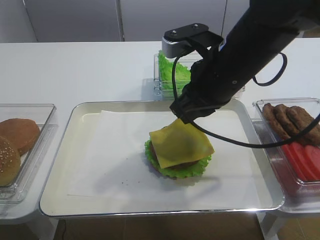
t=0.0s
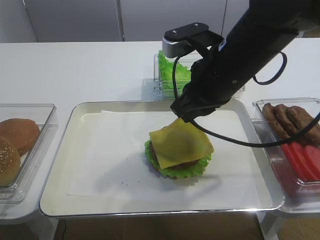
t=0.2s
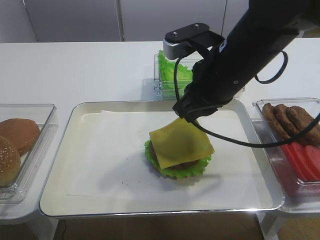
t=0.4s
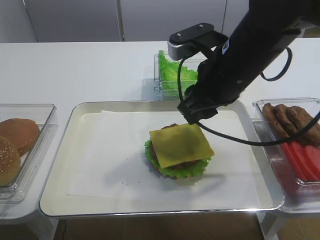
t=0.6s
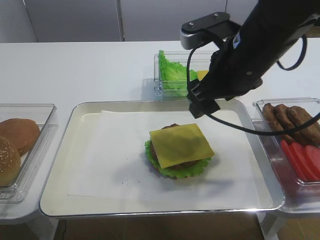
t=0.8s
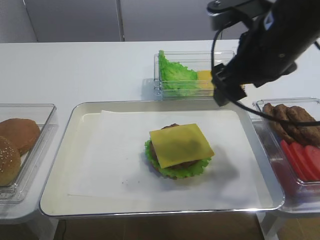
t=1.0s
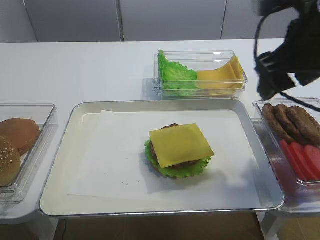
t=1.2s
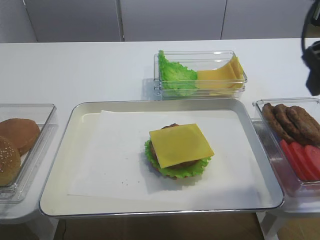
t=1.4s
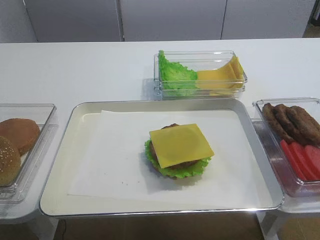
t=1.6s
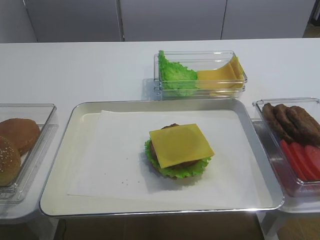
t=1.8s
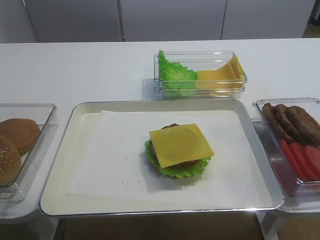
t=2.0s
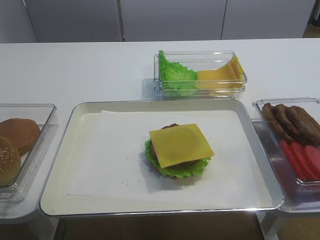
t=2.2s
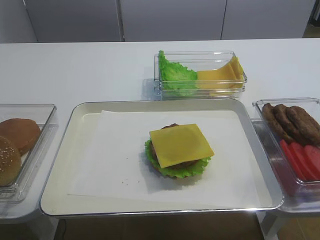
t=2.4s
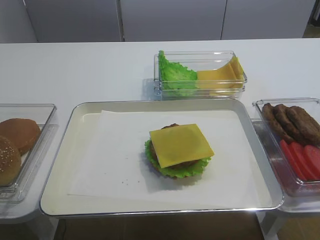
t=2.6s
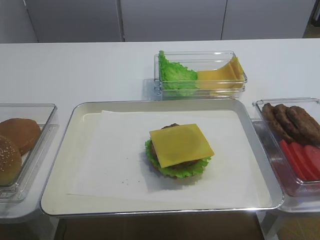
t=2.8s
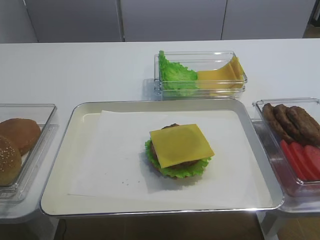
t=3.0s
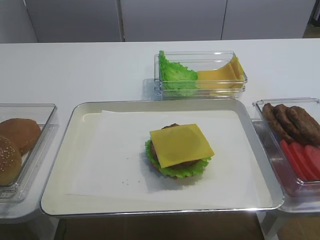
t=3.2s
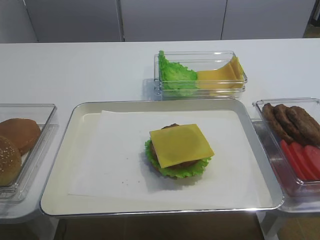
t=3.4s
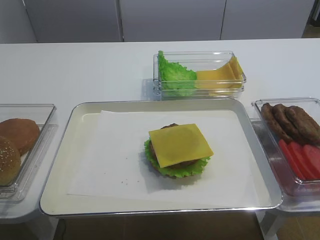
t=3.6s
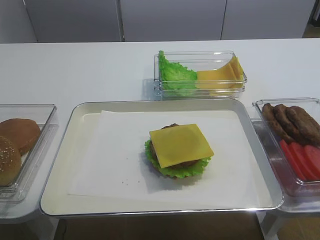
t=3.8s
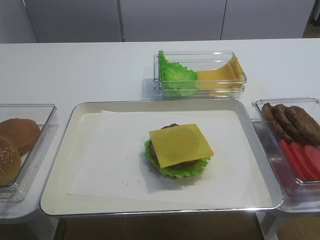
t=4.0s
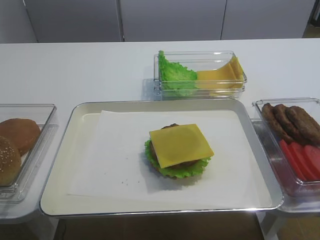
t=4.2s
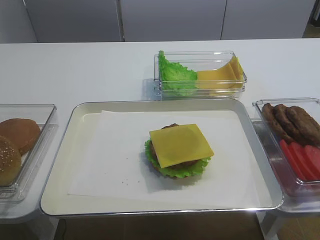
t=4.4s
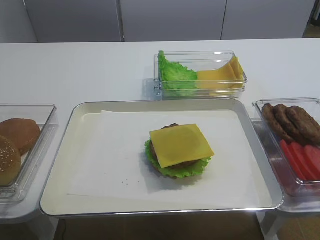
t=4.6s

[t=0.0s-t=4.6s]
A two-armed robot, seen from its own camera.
t=0.0s to t=1.6s: The right gripper shifts about 20 cm to the right, upward and backward, and opens its fingers.
t=1.6s to t=3.0s: The right gripper travels backward by some 20 cm.

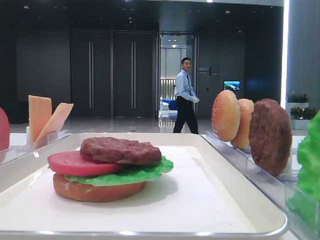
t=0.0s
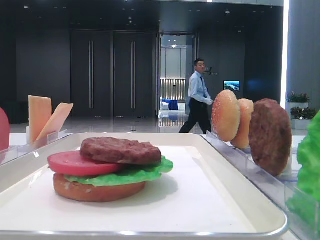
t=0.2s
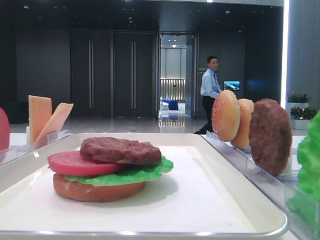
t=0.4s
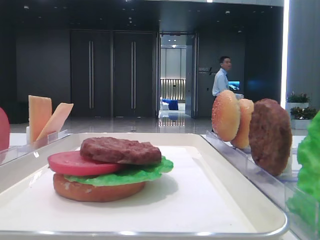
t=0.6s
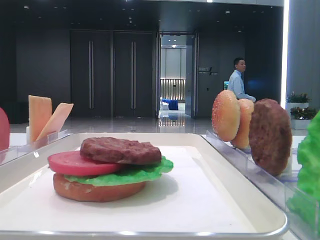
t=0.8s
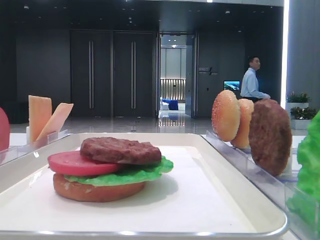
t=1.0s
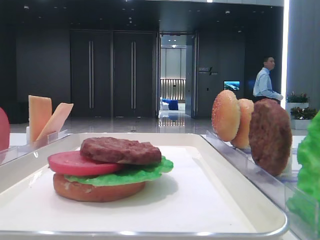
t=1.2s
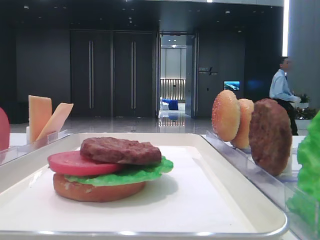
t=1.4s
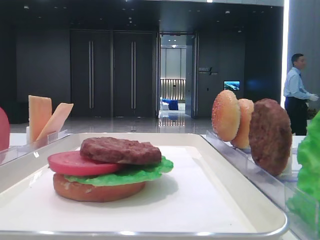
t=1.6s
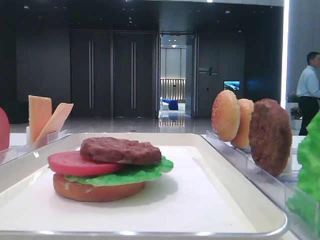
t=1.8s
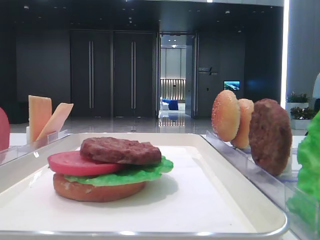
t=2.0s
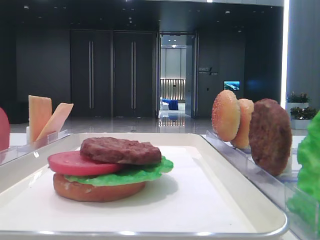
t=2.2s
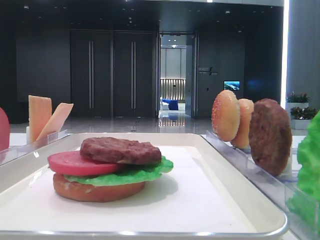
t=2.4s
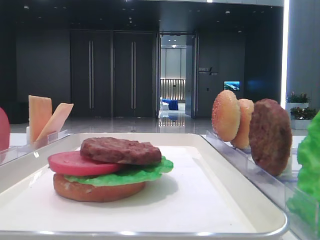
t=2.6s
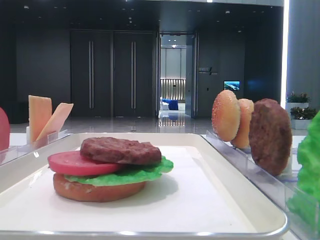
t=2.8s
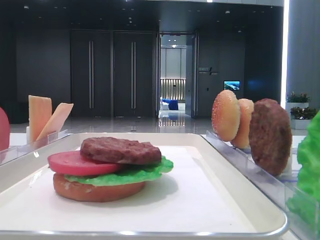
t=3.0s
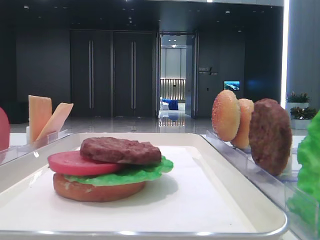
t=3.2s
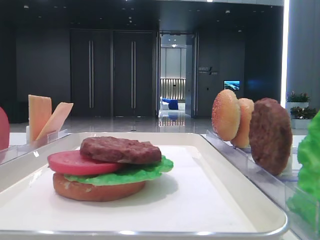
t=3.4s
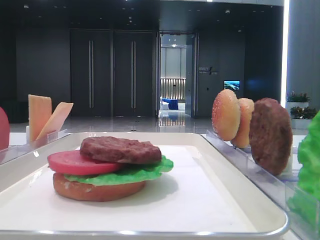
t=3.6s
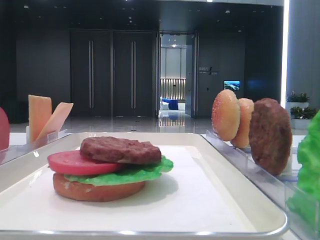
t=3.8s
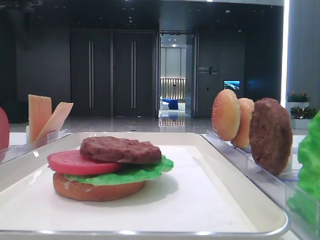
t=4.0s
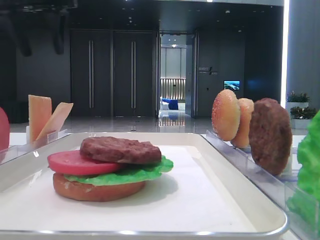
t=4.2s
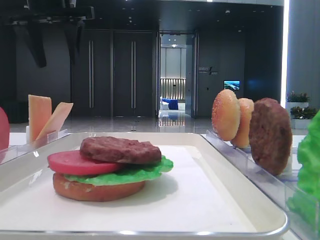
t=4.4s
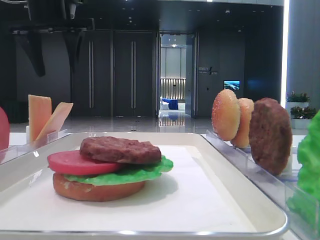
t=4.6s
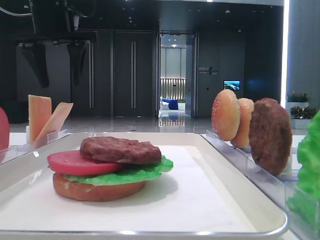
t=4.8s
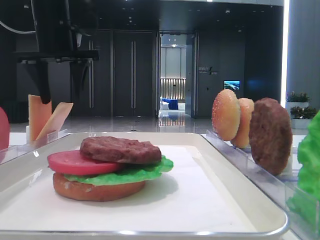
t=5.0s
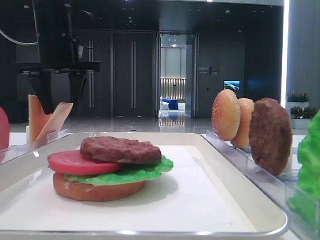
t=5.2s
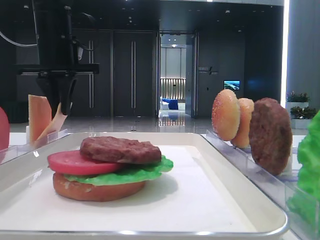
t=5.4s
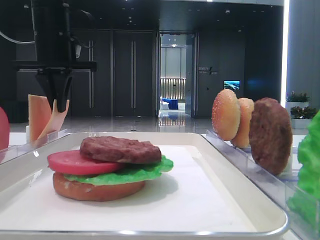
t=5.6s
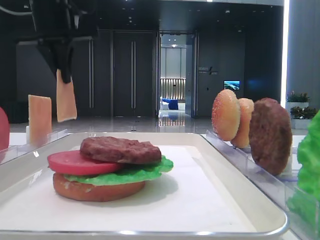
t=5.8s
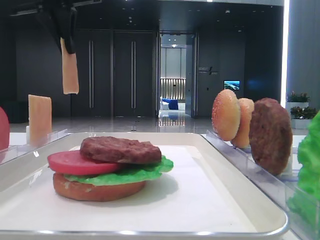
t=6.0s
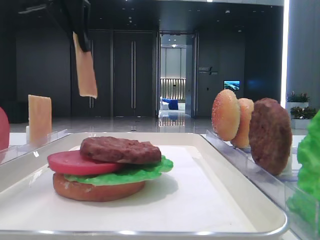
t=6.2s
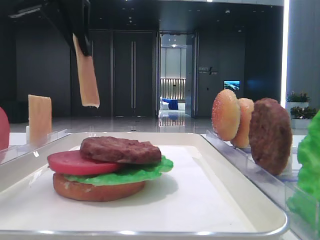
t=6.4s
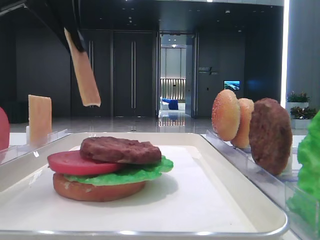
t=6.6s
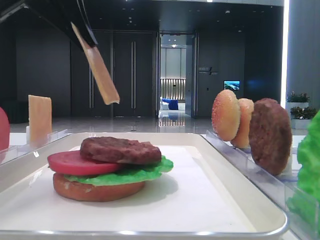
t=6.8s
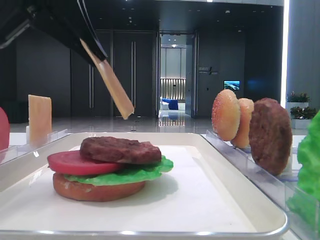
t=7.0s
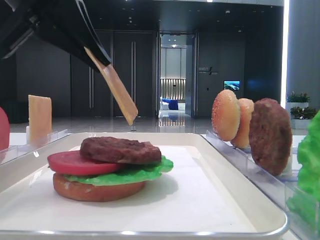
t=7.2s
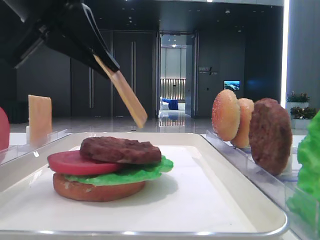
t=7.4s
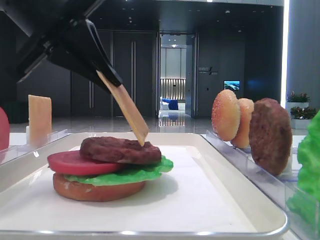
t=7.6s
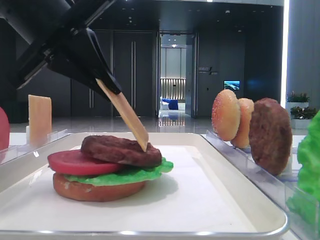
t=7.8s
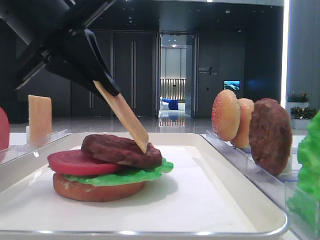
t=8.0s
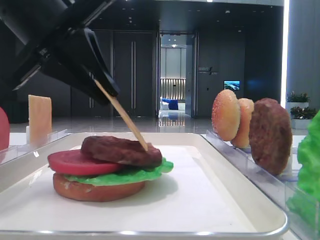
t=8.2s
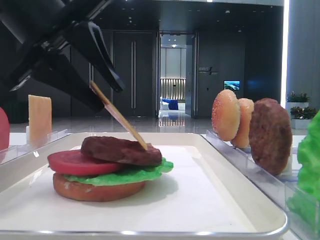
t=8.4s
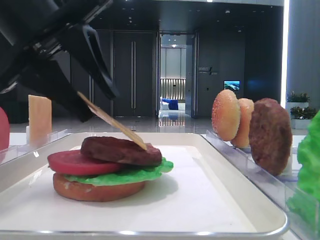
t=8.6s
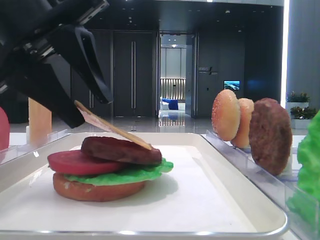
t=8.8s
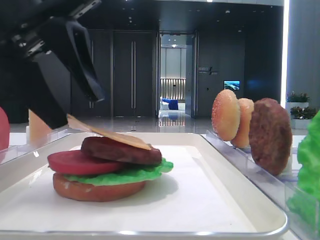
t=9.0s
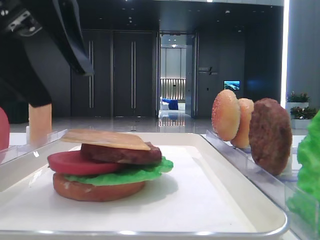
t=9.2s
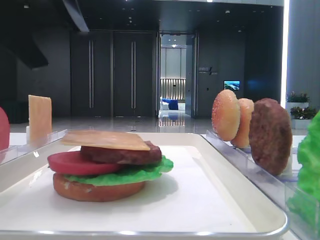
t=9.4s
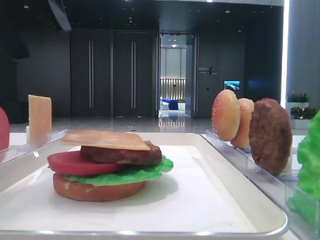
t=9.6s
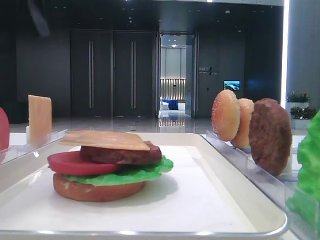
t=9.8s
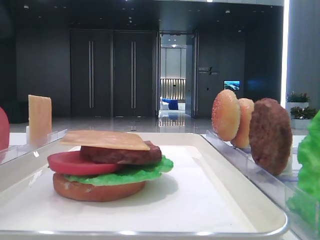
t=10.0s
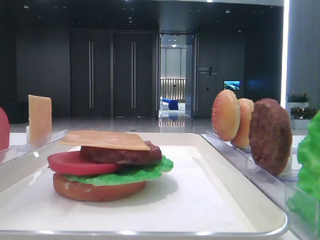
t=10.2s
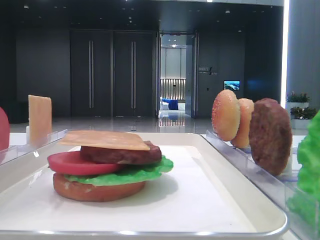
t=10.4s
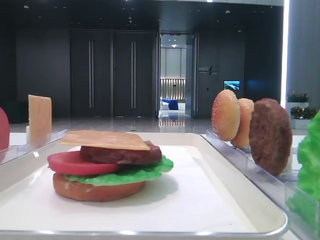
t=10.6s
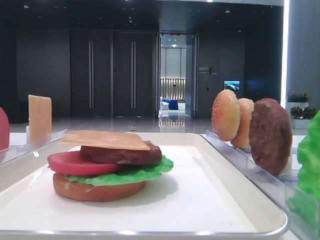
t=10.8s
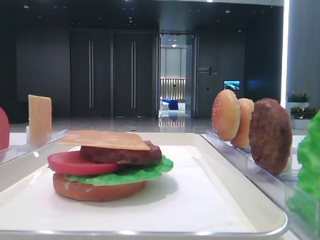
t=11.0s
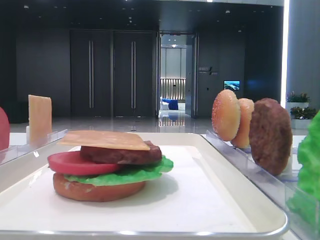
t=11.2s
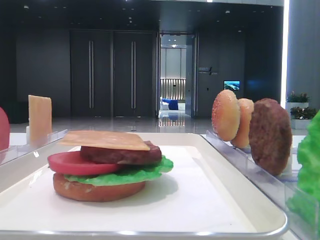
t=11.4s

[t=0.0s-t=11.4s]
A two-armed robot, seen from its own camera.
Step, t=0.0s to t=5.4s: Pick up the cheese slice with the left hand.
Step, t=5.6s to t=9.2s: Place the cheese slice on the patty with the left hand.
t=1.4s to t=2.8s: The grippers make only small movements.
t=2.8s to t=4.2s: The left gripper moves forward, roughly 40 cm.
t=4.2s to t=5.6s: The left gripper is displaced downward by approximately 10 cm, and closes.
t=5.6s to t=7.2s: The left gripper shifts roughly 20 cm backward.
t=7.2s to t=8.6s: The left gripper opens its fingers.
t=8.6s to t=10.0s: The left gripper moves upward and to the left, roughly 10 cm.
t=10.0s to t=11.4s: The left gripper heads to the left, covering approximately 15 cm.

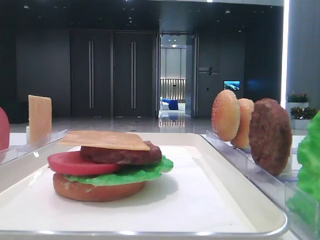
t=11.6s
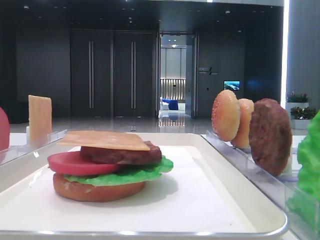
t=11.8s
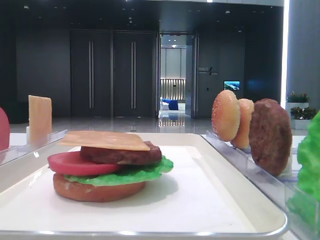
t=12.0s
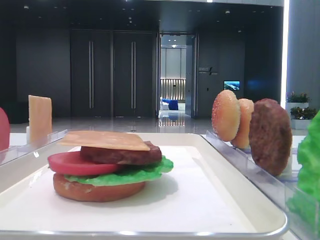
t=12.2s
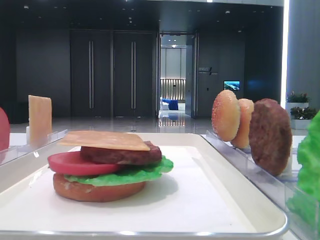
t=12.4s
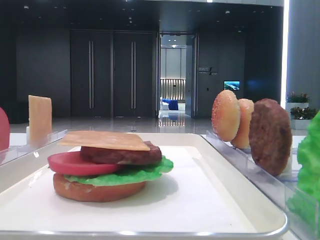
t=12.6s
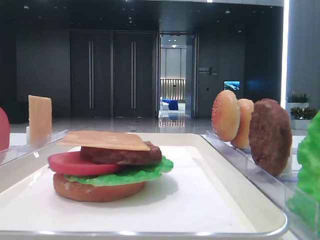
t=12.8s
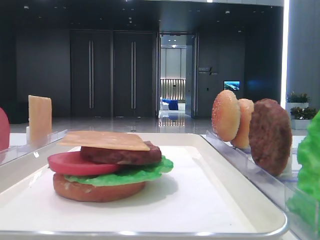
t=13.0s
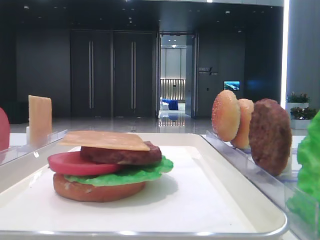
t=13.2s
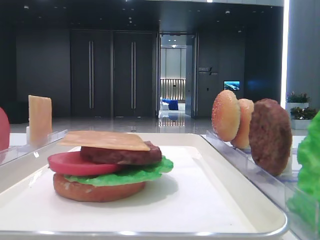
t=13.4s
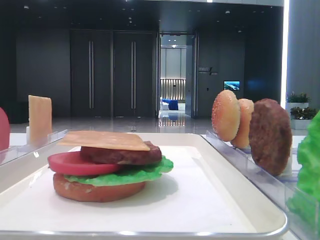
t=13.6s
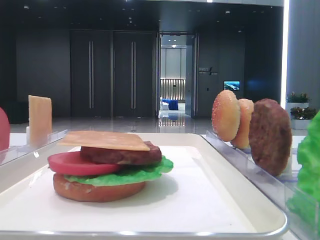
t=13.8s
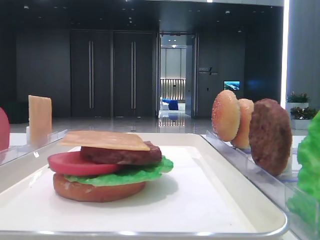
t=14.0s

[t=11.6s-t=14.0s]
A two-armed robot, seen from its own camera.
t=12.8s to t=14.0s: Both grippers stay about where they are.

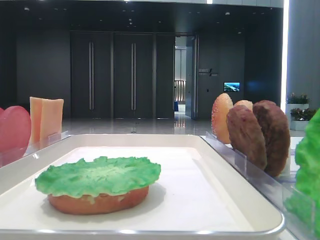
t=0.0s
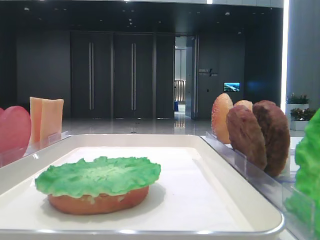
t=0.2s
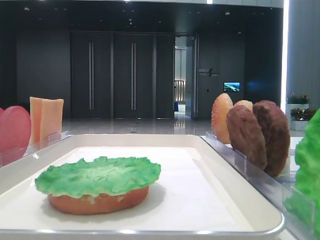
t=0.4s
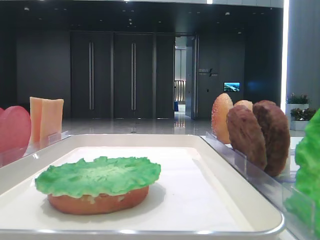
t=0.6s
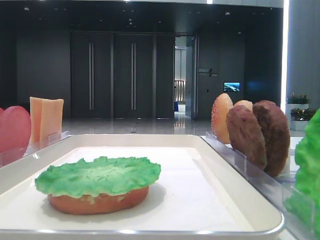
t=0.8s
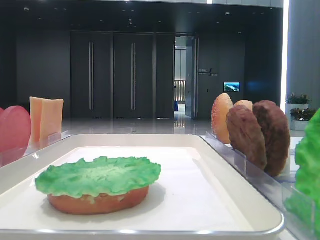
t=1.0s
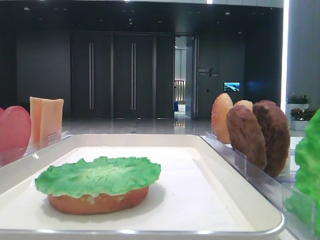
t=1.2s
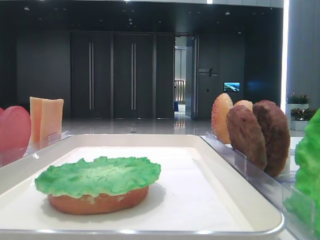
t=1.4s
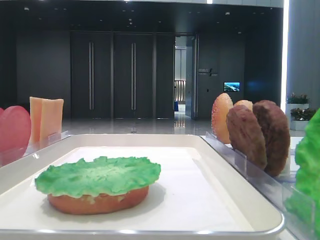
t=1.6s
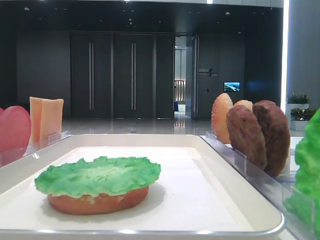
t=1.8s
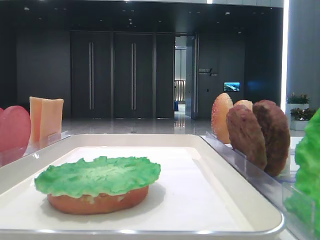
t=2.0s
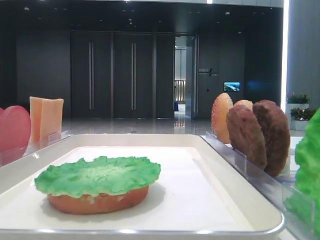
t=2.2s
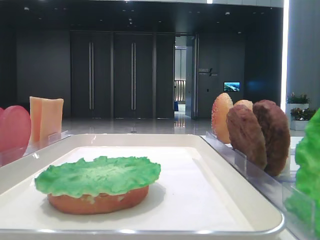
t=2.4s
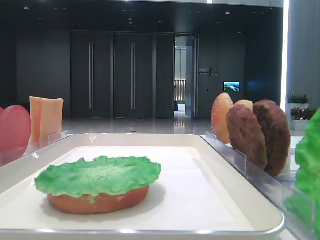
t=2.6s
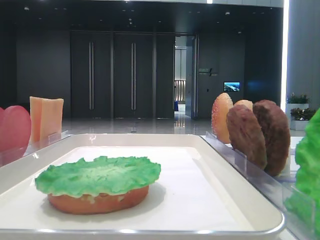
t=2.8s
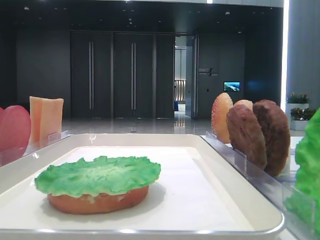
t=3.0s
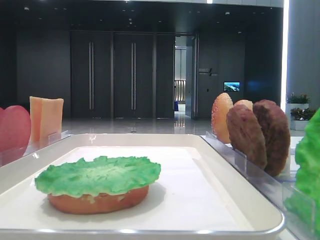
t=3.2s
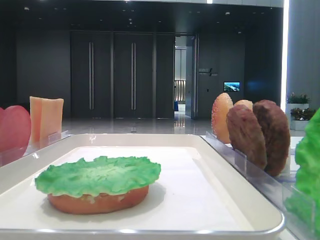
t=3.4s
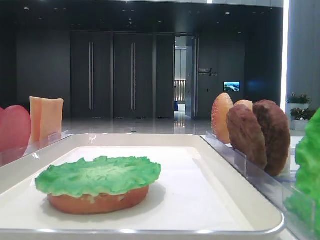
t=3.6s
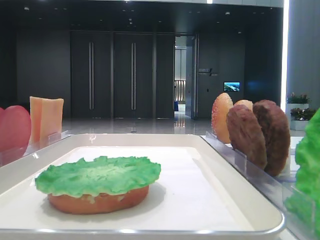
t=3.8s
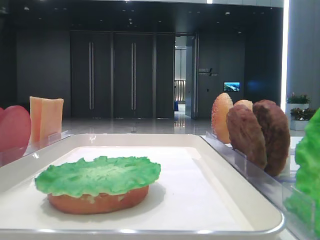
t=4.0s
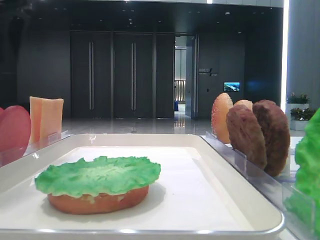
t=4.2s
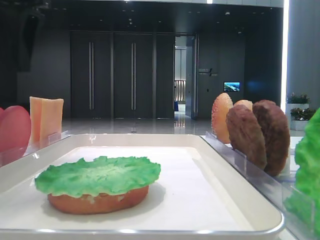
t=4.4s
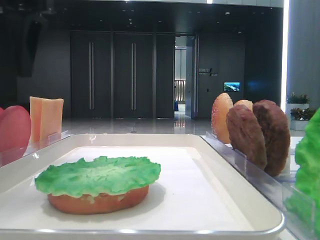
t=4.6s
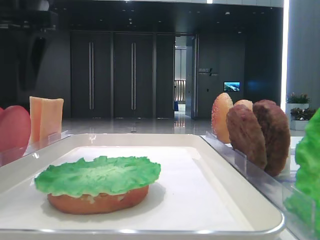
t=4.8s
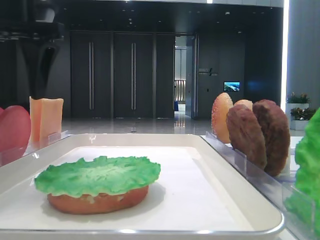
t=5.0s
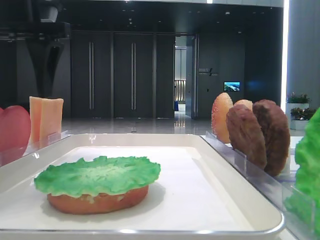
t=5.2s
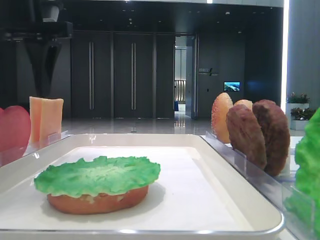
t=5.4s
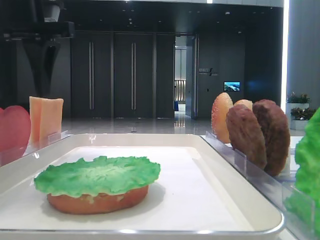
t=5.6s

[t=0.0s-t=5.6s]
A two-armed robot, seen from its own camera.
t=2.8s to t=4.2s: The left gripper goes approximately 10 cm to the right.
t=4.2s to t=5.6s: There are only small adjustments of the grippers.
